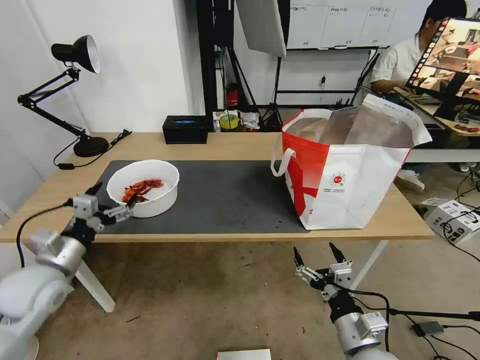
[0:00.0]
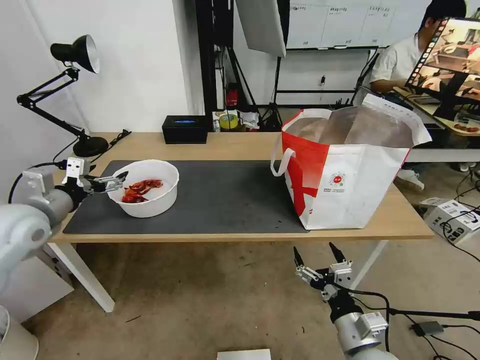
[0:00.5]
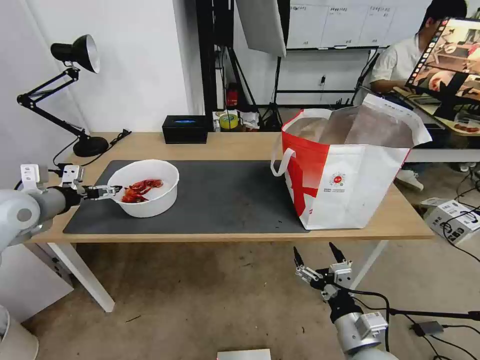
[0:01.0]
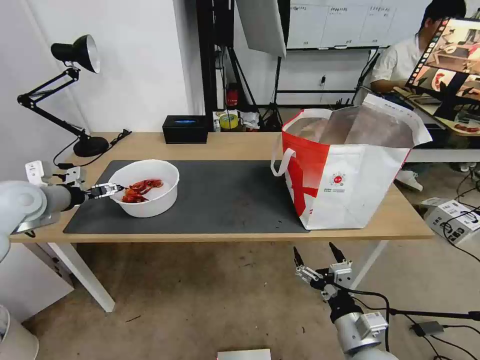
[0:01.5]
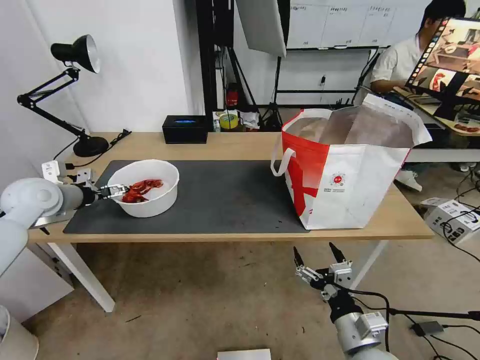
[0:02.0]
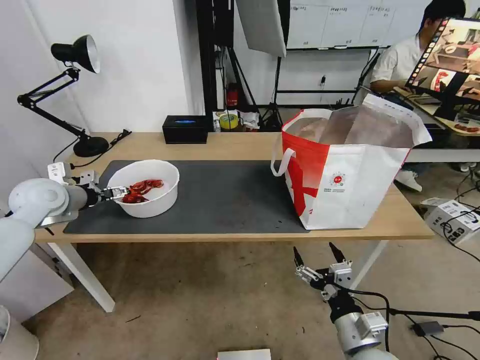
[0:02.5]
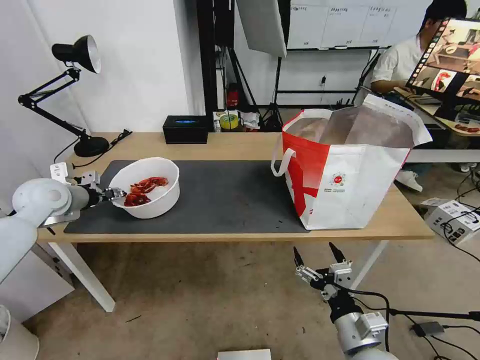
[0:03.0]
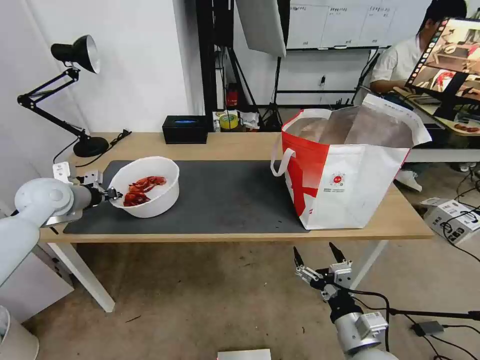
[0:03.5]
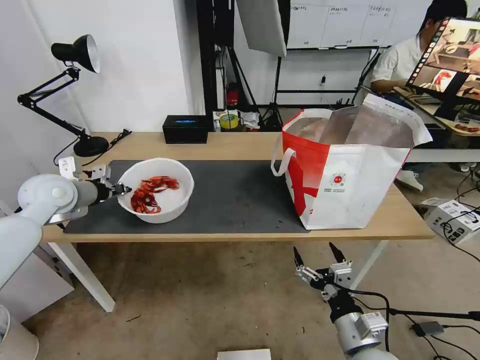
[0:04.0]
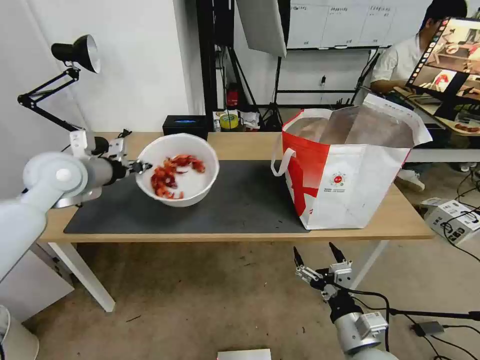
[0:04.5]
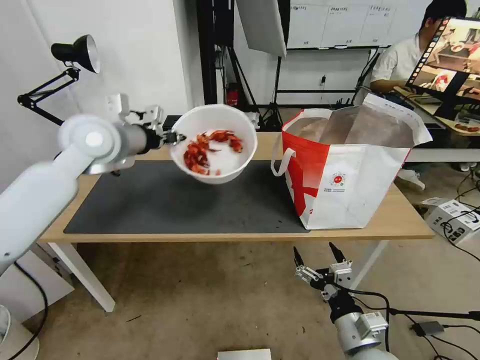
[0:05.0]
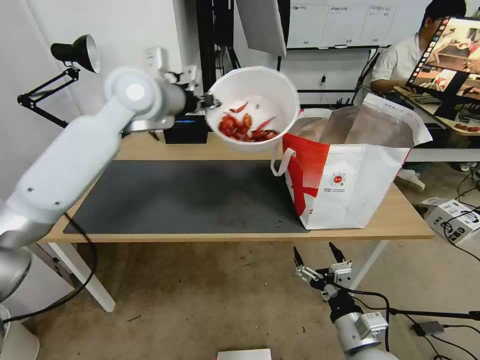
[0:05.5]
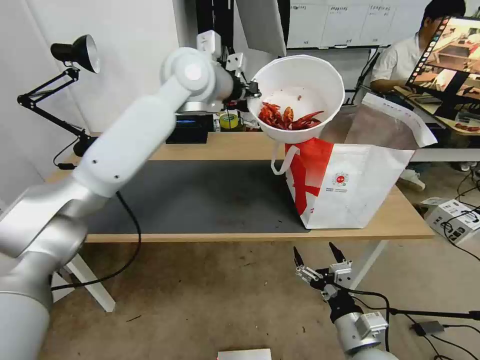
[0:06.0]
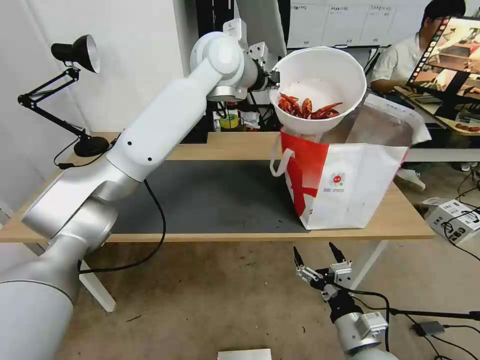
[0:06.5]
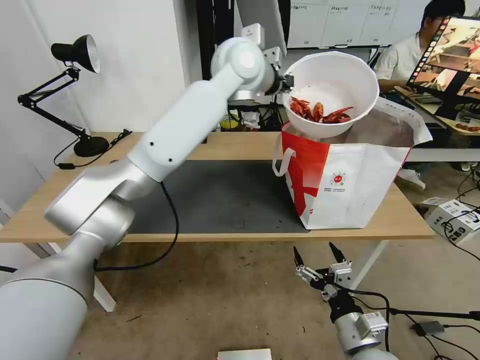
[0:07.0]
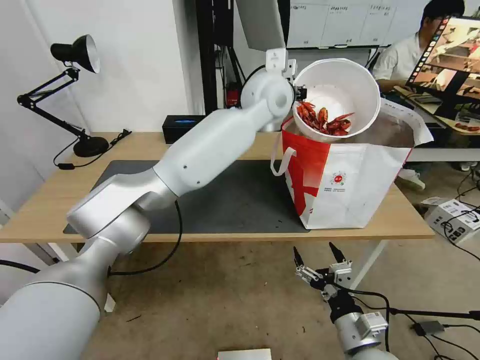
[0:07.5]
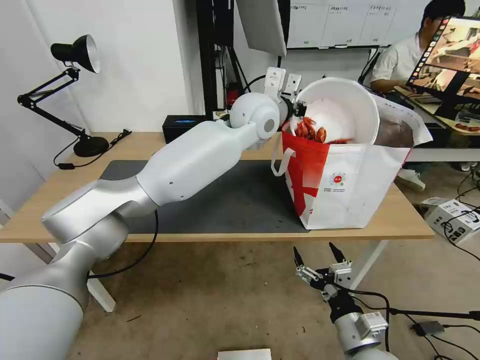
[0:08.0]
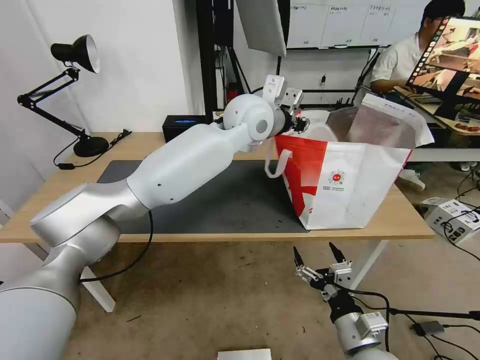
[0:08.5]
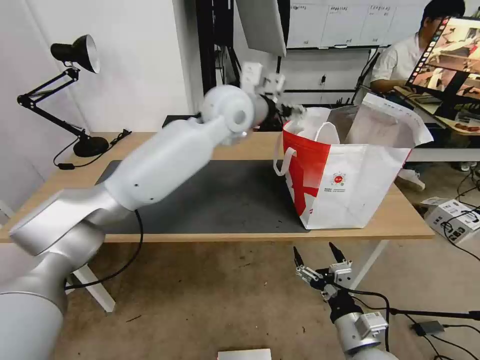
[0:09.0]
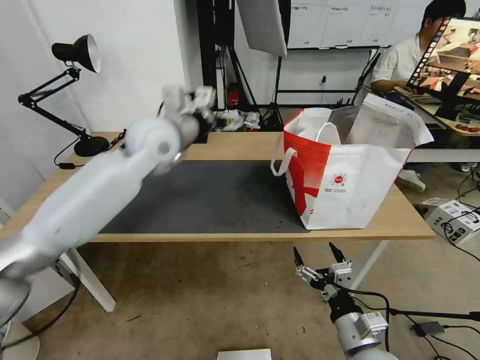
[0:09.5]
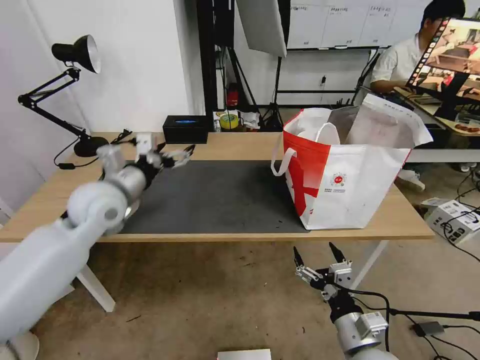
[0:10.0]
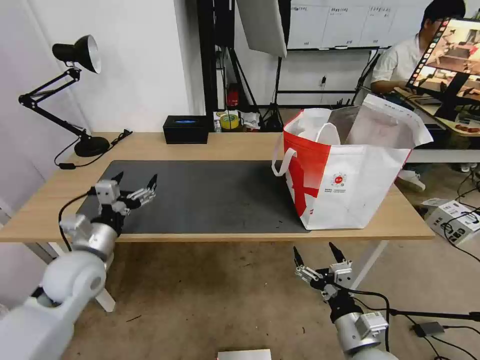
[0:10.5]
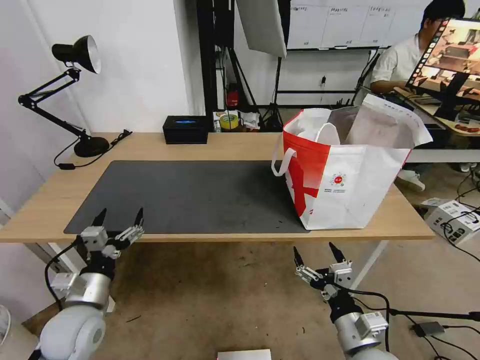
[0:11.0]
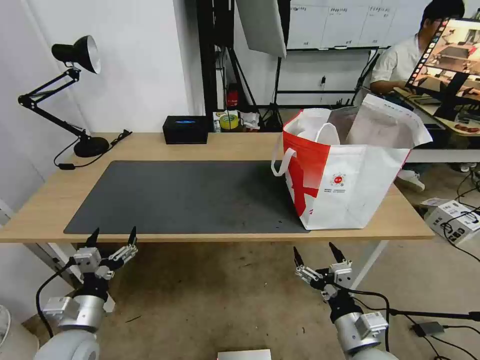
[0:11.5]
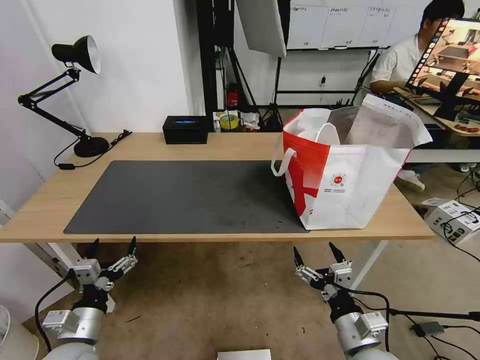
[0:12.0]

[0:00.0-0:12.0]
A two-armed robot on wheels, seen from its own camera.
Task of the whole recording: Pick up the trash from the table and place it into the takeout bag.
0:00.0 to 0:02.0: The left gripper heads forward and upward, covering some 20 cm.
0:02.0 to 0:04.0: The left gripper closes up.
0:04.0 to 0:06.0: The left gripper heads to the right and upward, covering some 35 cm.
0:06.0 to 0:08.0: The left gripper shifts approximately 15 cm to the right and downward.
0:08.0 to 0:10.0: The left gripper moves to the left and backward, about 30 cm, and opens.
0:10.0 to 0:12.0: The left gripper is displaced backward and downward by about 30 cm.
